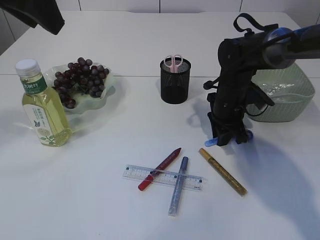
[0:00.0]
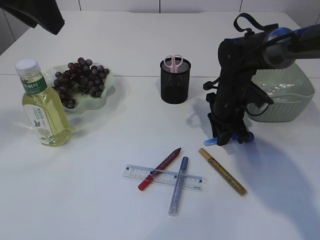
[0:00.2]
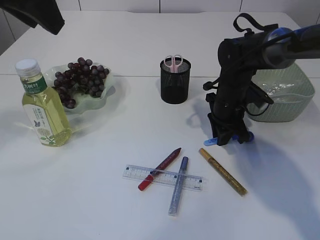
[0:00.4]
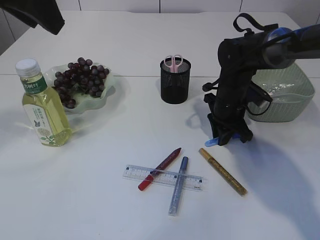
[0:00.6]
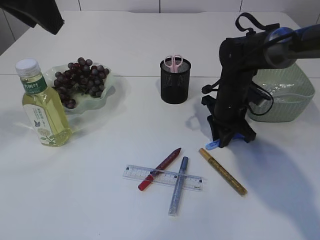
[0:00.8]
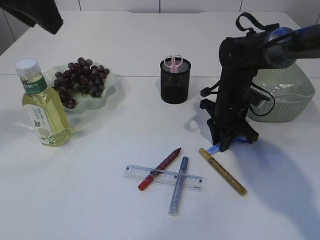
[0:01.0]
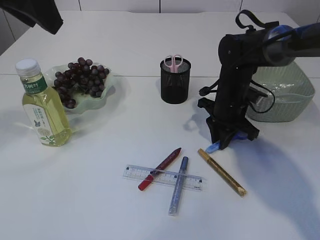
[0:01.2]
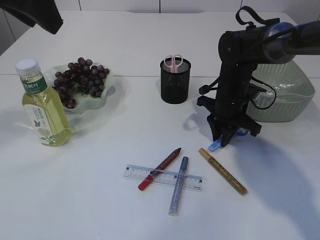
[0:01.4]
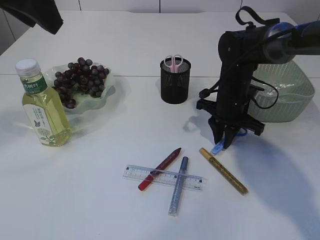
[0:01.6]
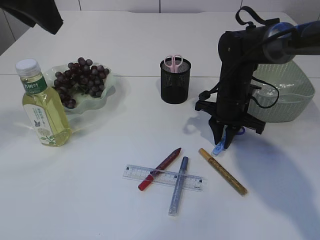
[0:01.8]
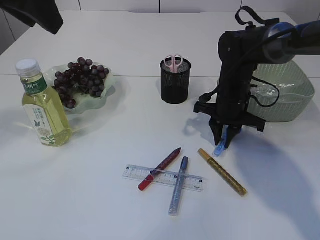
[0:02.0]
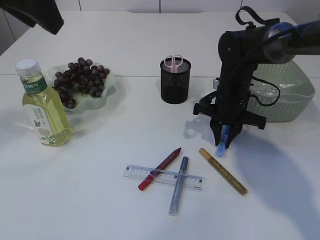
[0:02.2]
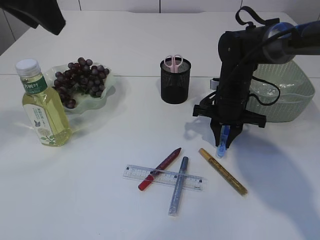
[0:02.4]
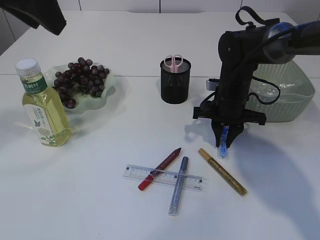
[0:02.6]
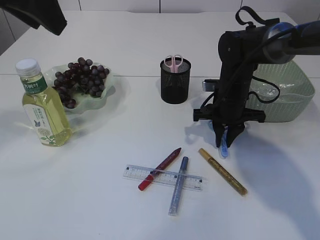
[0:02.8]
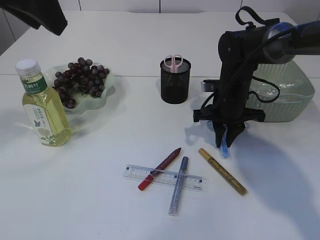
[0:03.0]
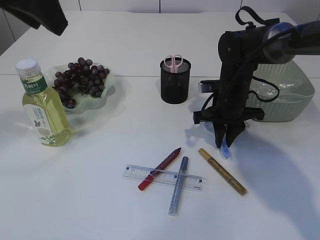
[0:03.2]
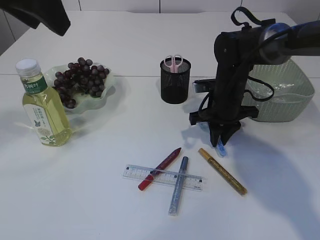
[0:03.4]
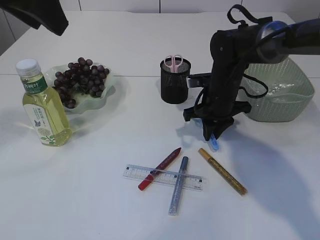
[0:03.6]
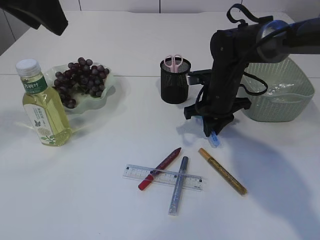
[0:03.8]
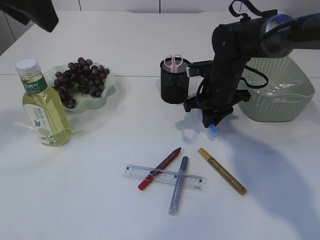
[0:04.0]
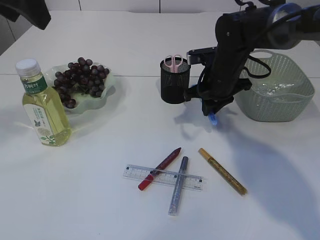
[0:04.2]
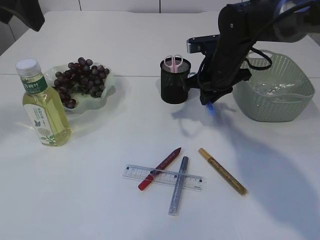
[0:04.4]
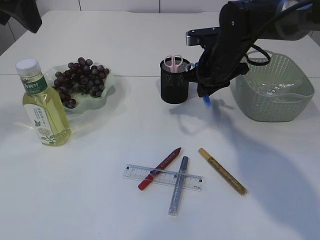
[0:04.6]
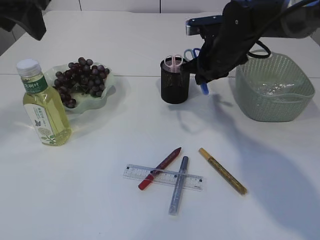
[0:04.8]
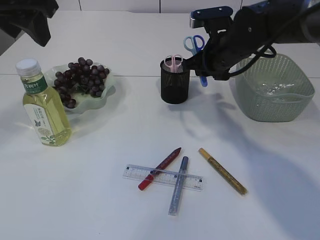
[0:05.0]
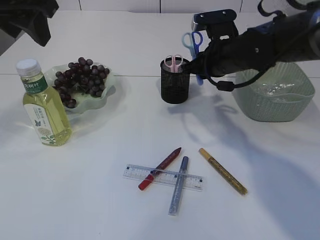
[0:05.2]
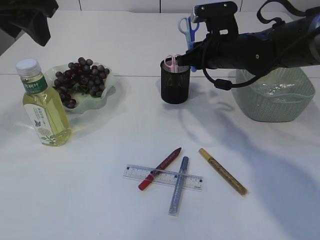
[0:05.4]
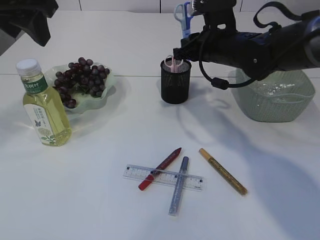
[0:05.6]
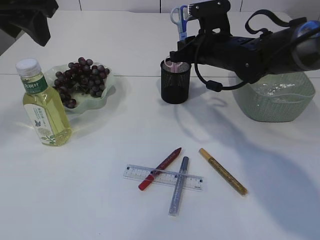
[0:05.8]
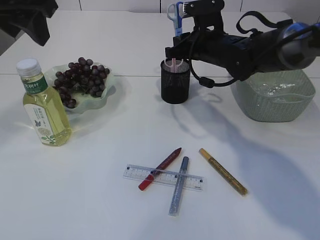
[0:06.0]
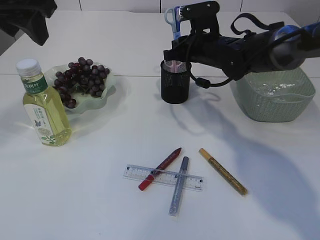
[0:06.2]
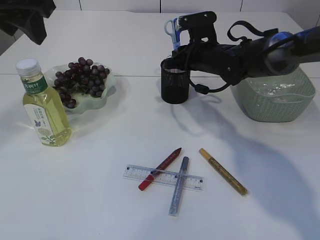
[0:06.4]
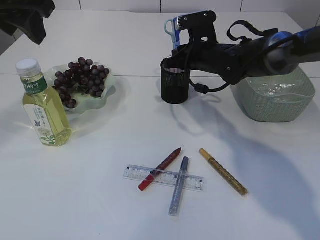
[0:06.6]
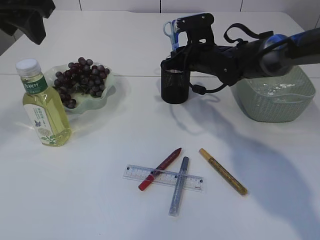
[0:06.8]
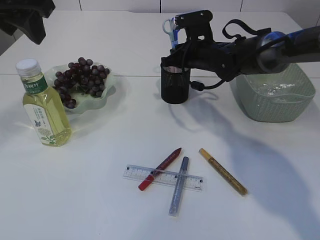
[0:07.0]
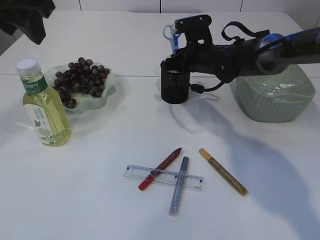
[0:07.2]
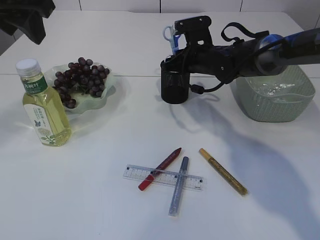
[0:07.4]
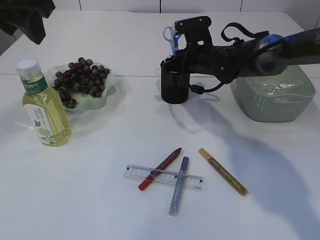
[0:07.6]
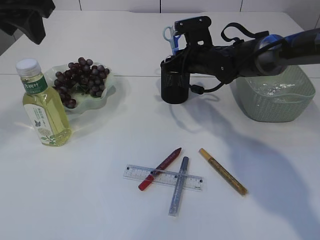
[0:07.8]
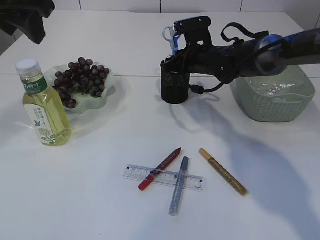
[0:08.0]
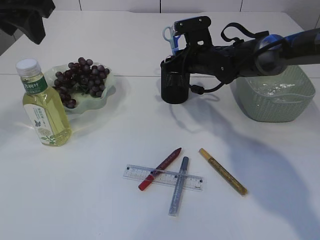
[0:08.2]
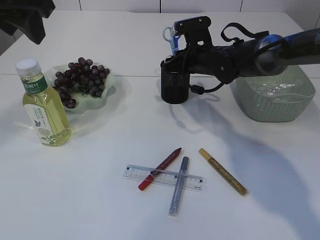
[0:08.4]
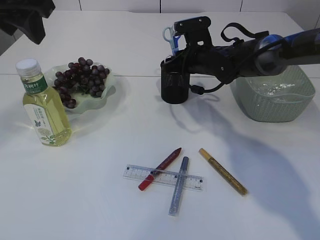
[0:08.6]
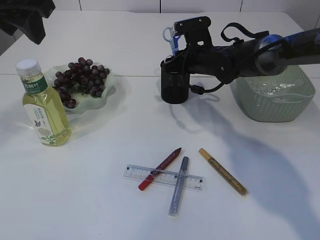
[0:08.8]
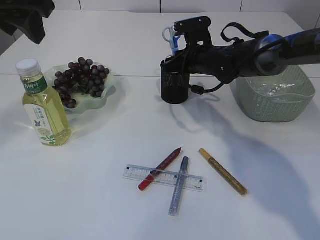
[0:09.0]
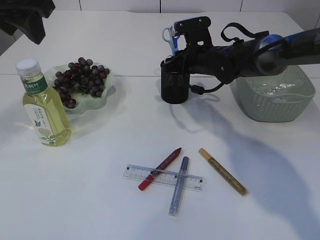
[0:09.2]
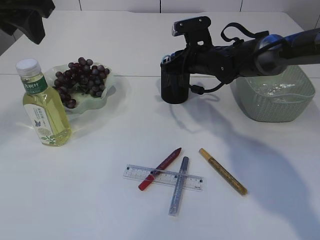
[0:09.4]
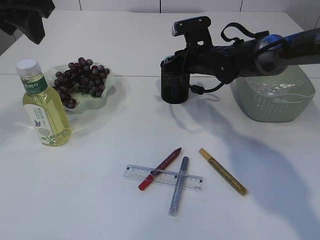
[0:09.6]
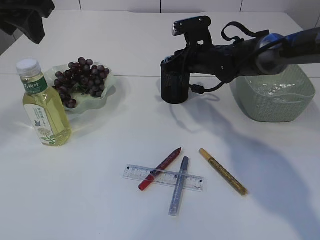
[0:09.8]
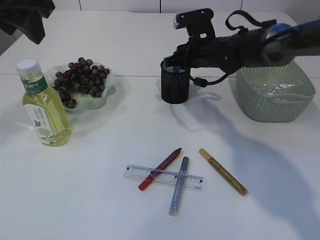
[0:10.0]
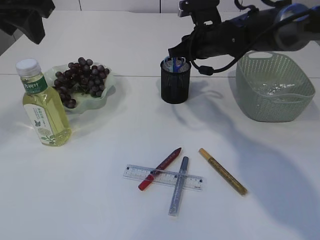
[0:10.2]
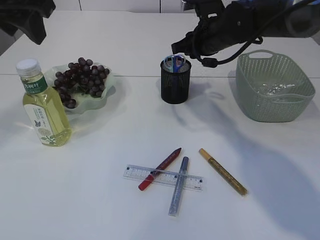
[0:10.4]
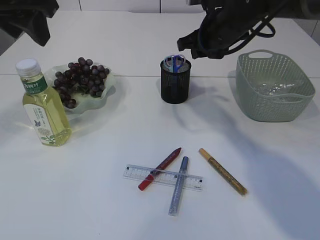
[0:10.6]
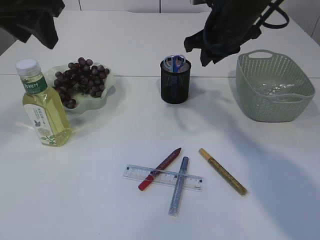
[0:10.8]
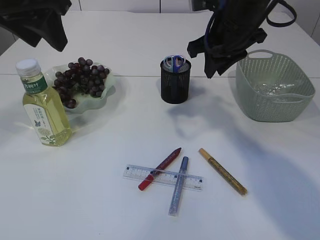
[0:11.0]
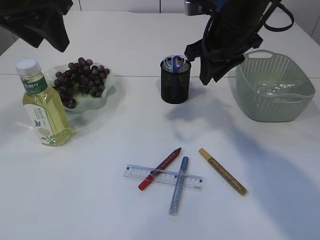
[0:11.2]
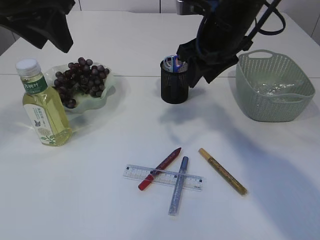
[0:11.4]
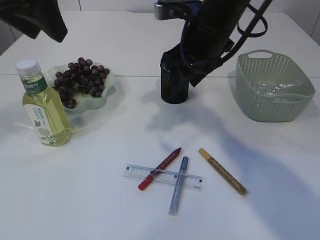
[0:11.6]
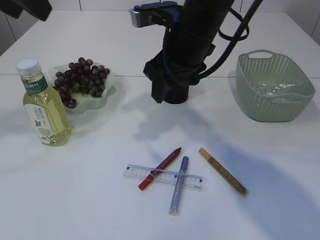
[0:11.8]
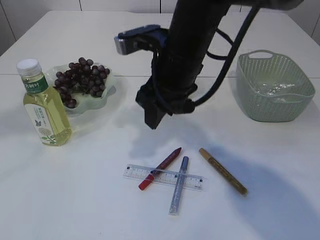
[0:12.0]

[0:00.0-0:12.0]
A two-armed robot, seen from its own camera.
Step, 0:00.0 to 0:04.2: pick up the blue scissors.
Step, 0:04.4 to 0:10.2: Place the blue scissors into the pen holder.
0:03.0 to 0:04.4: The right gripper goes roughly 5 cm upward.
0:06.0 to 0:07.6: The right gripper shifts by roughly 5 cm.
0:07.6 to 0:09.0: The two grippers keep their place.
0:09.0 to 0:10.4: The right gripper moves upward, about 5 cm.
0:10.4 to 0:12.0: The left gripper heads backward and upward, covering roughly 10 cm. The right gripper heads backward and to the left, covering some 15 cm, and opens.

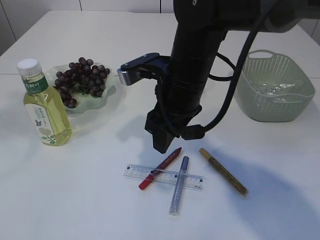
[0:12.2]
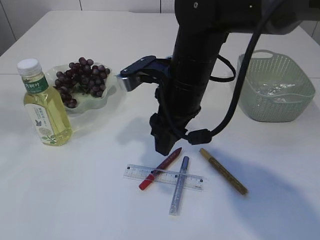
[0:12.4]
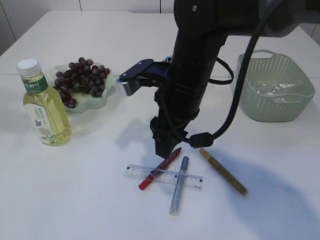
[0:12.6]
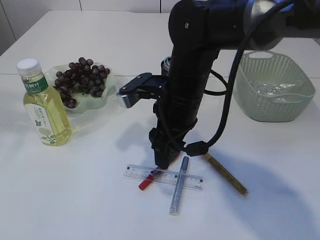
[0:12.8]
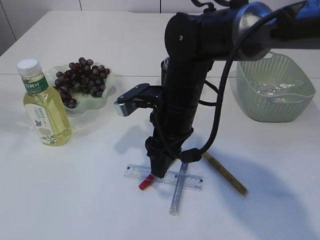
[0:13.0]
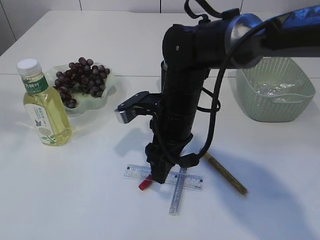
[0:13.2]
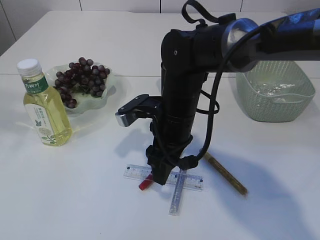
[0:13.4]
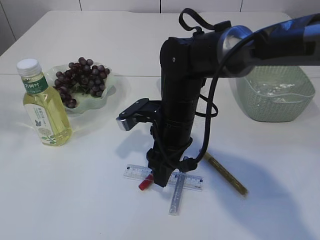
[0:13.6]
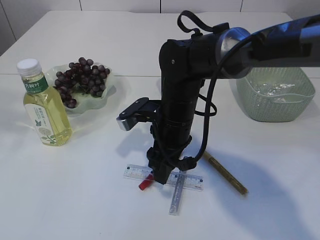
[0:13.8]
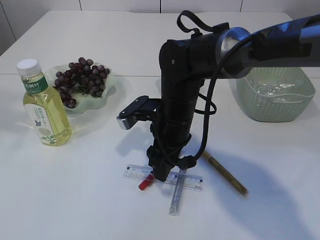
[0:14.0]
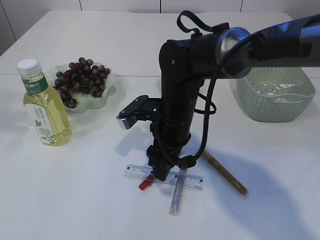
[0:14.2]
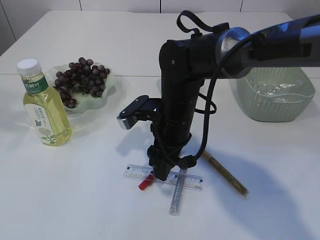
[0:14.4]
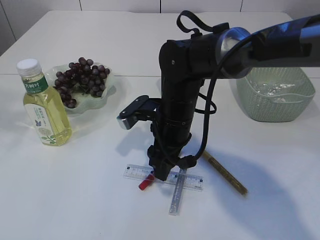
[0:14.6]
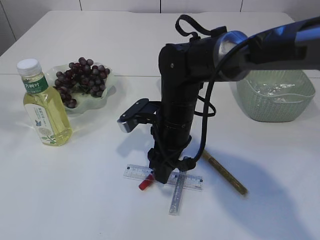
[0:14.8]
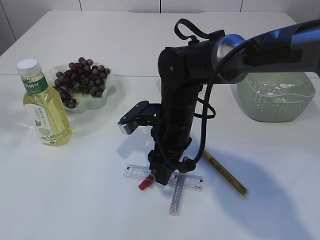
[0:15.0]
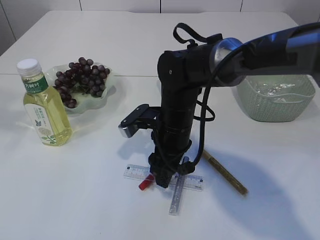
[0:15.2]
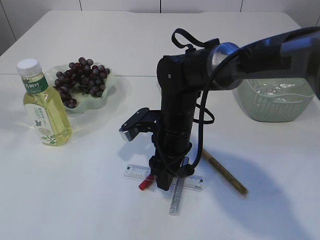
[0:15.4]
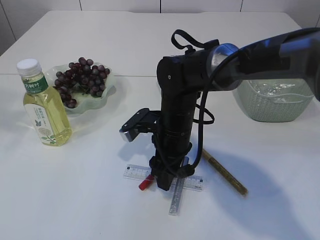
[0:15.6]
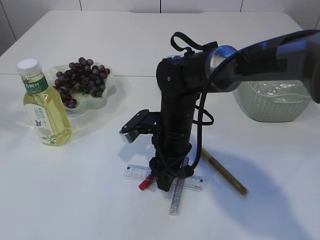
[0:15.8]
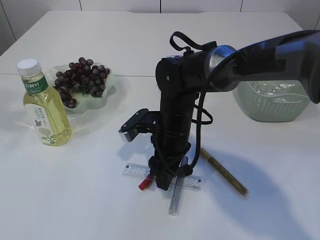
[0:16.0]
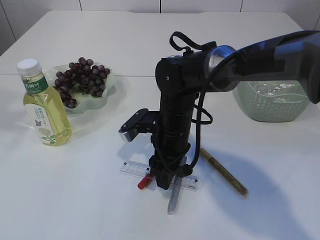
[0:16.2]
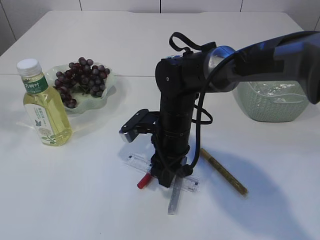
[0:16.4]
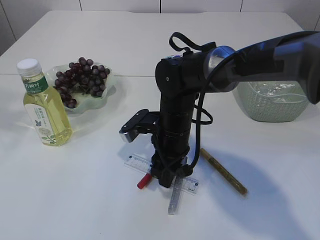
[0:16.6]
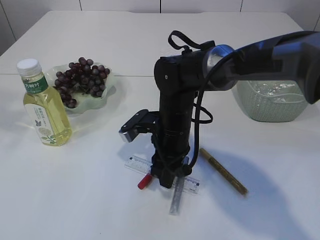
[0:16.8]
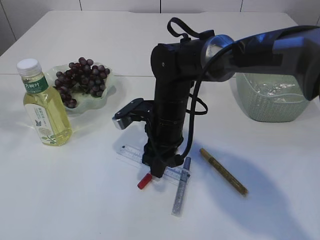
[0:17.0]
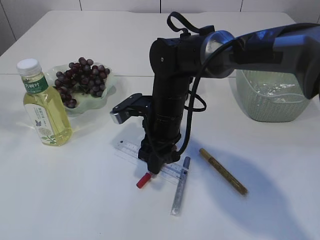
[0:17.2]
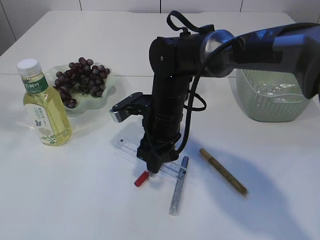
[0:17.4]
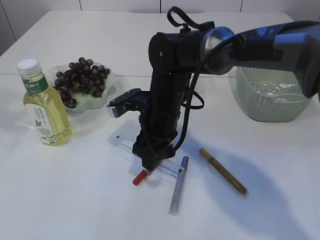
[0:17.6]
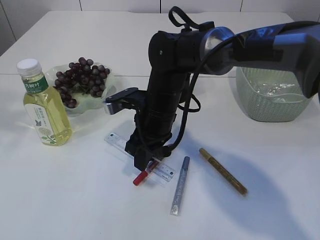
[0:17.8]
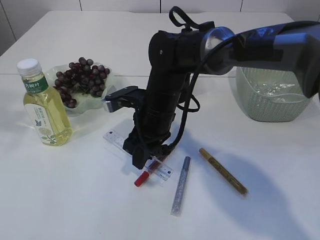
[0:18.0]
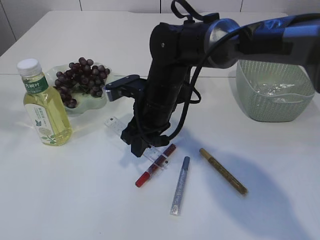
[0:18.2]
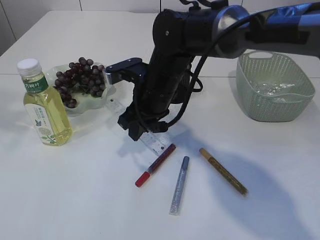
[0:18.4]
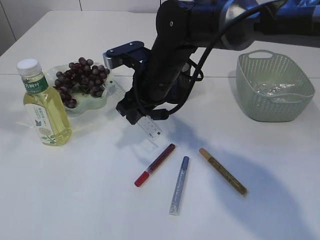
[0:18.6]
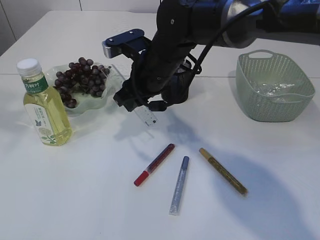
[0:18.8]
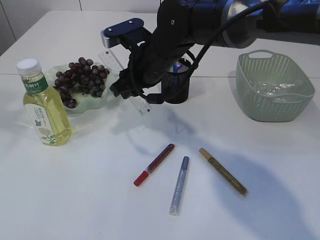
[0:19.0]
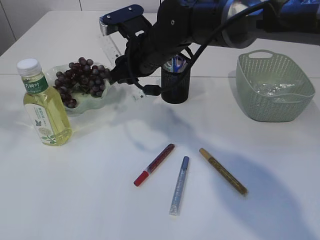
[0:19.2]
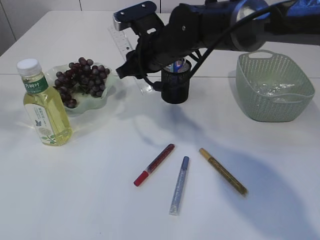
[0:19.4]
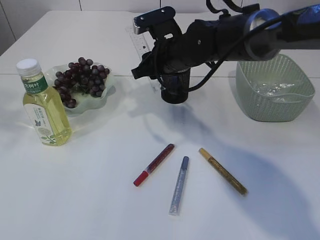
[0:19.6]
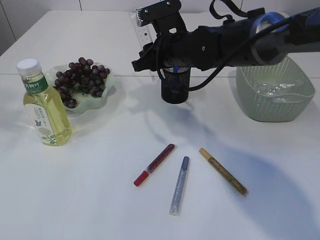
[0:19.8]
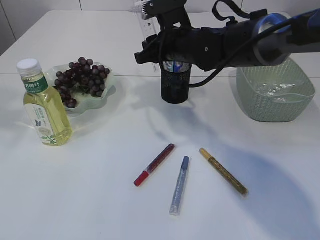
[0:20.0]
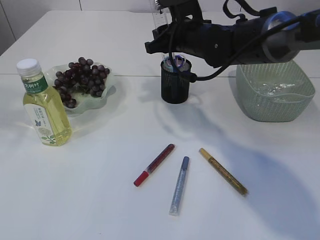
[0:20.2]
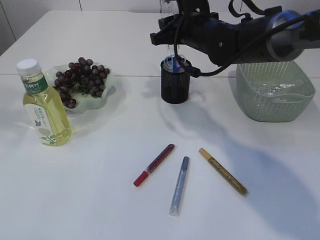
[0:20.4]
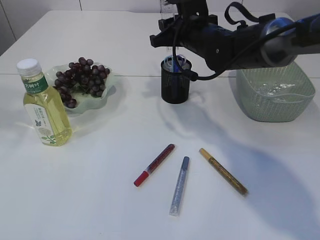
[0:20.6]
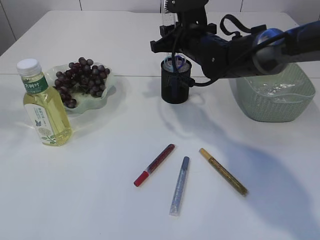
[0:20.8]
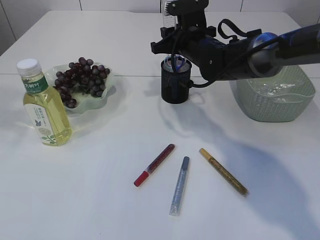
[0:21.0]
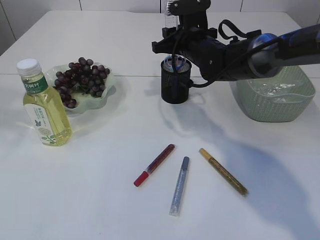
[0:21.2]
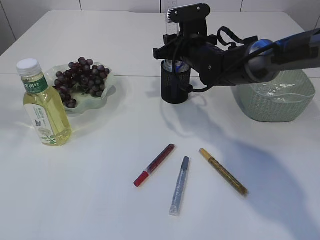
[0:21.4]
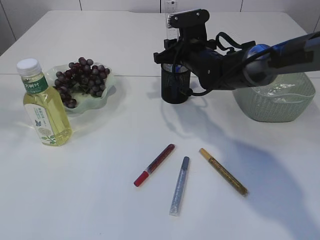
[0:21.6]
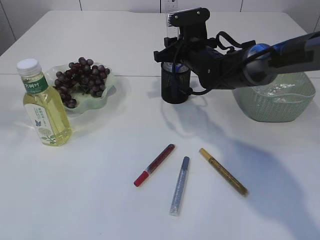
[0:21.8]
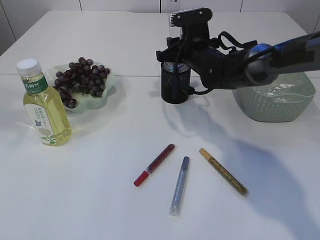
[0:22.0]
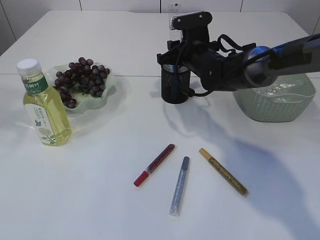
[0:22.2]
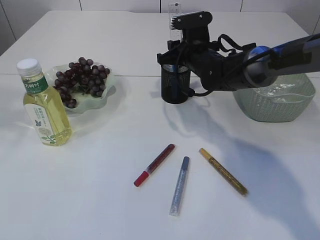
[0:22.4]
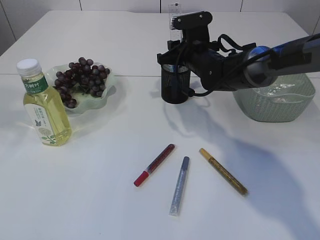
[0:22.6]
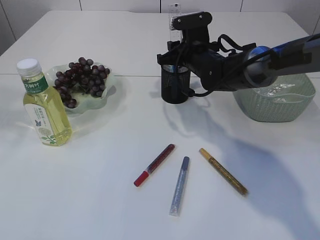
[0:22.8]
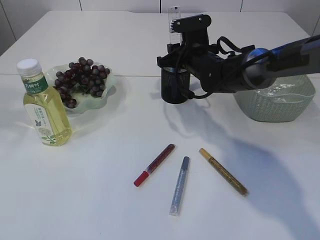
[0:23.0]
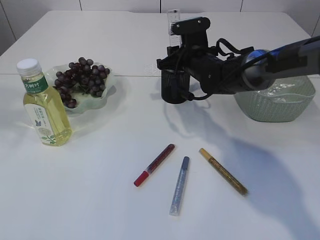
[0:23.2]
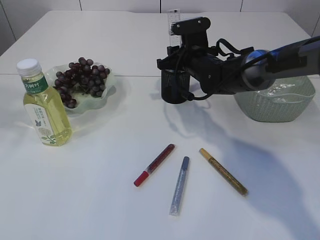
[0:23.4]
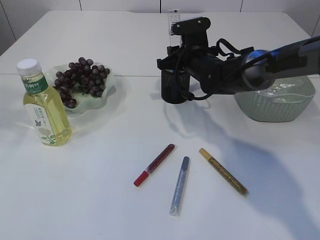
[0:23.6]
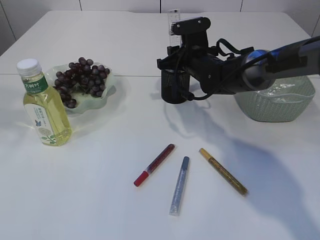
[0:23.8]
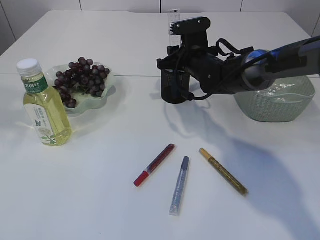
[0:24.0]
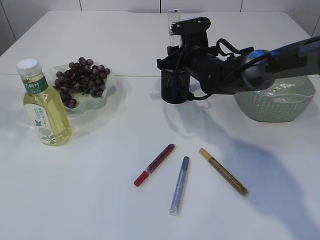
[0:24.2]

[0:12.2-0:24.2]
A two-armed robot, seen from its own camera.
Step, 0:12.2 to 0:18.4: pick up the ruler.
0:12.2 to 0:13.8: The right gripper heads downward, covering approximately 10 cm.
0:13.8 to 0:15.2: The grippers stay close to where they were, moving slightly.
0:15.2 to 0:16.6: The right gripper closes.
0:16.6 to 0:18.2: The right gripper ends up approximately 5 cm from where it was.
0:18.2 to 0:19.8: The right gripper goes some 5 cm forward.
0:19.8 to 0:21.2: The right gripper shifts by approximately 5 cm.
0:21.2 to 0:22.6: The grippers make only small movements.
0:22.6 to 0:24.2: Neither gripper changes place.
